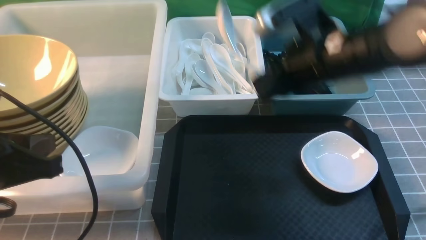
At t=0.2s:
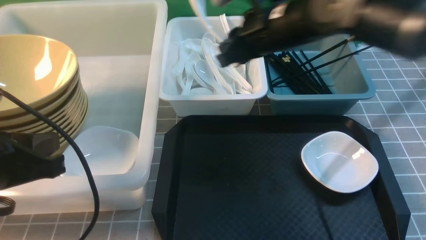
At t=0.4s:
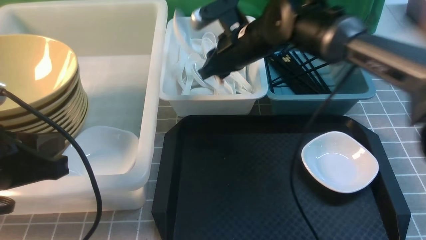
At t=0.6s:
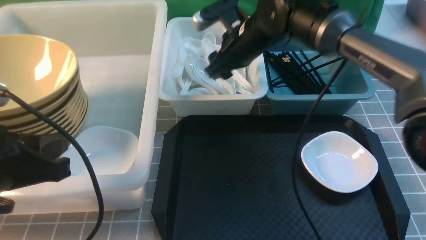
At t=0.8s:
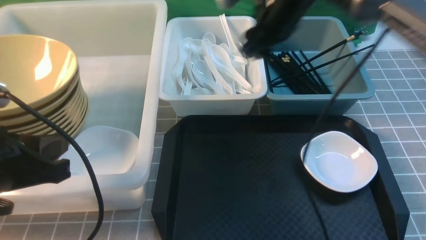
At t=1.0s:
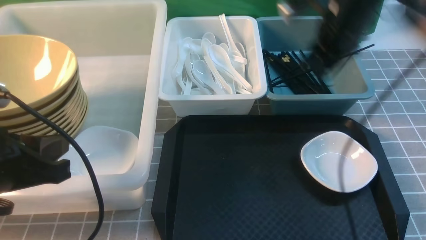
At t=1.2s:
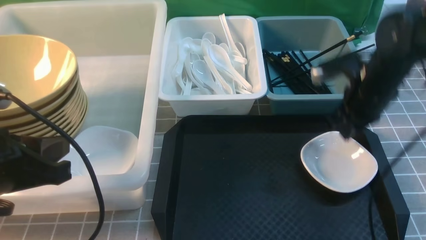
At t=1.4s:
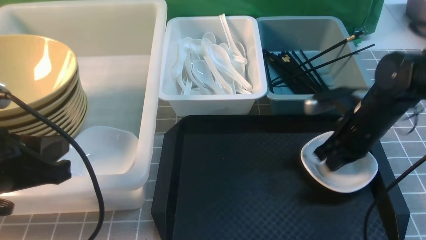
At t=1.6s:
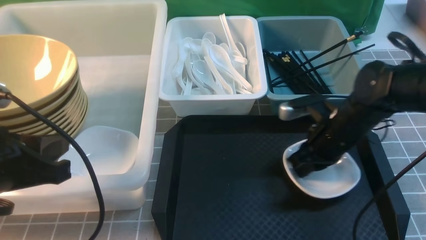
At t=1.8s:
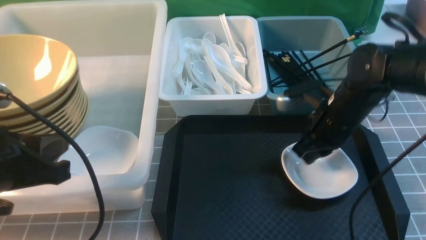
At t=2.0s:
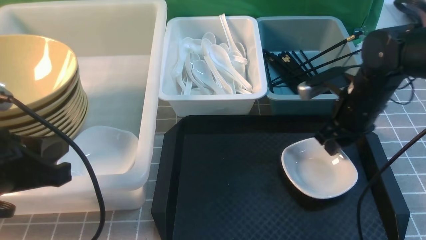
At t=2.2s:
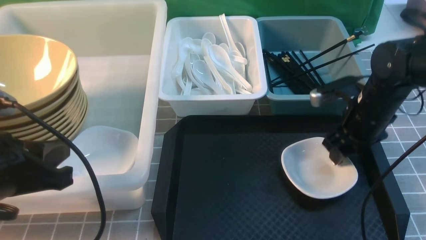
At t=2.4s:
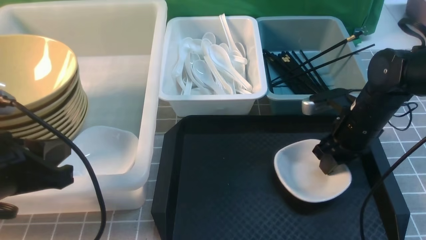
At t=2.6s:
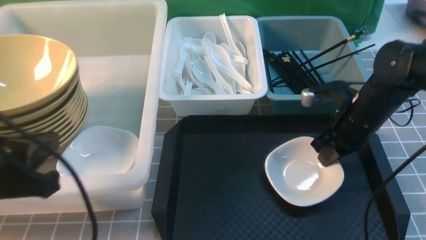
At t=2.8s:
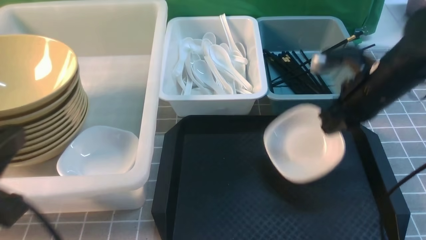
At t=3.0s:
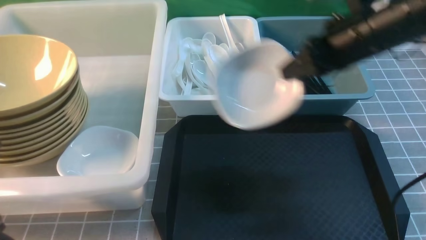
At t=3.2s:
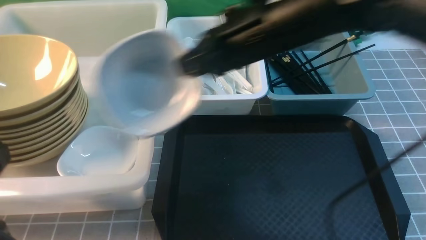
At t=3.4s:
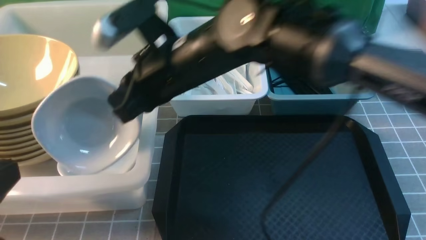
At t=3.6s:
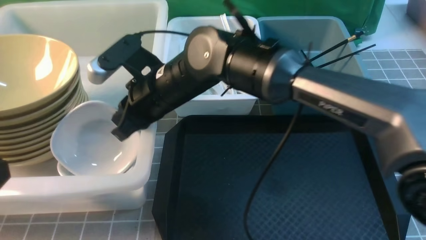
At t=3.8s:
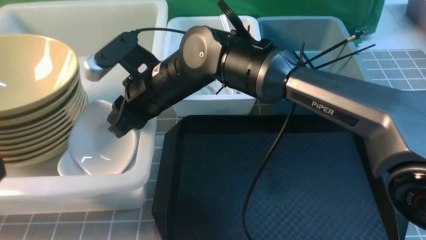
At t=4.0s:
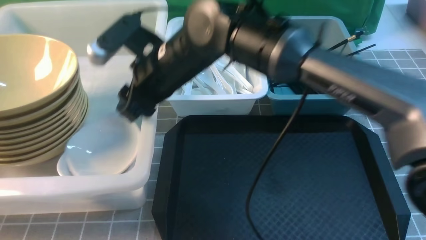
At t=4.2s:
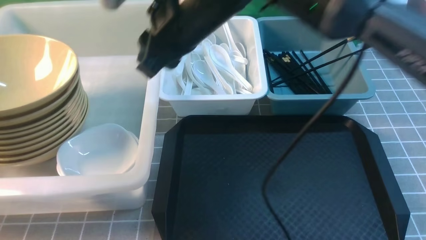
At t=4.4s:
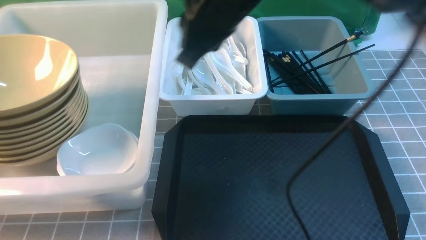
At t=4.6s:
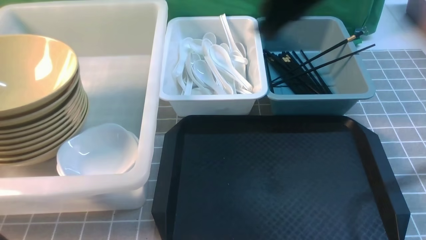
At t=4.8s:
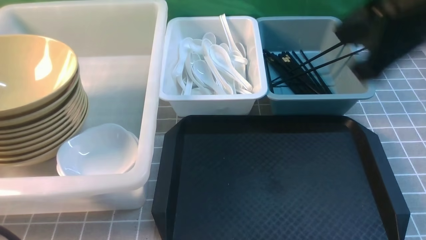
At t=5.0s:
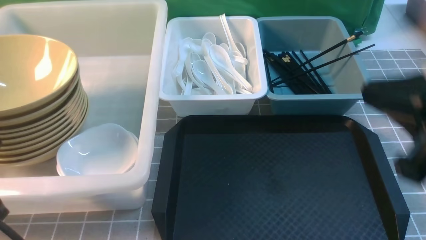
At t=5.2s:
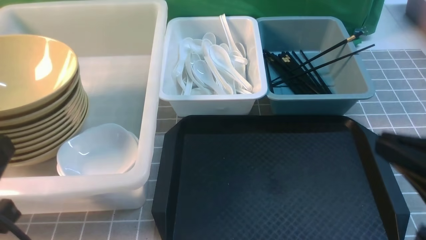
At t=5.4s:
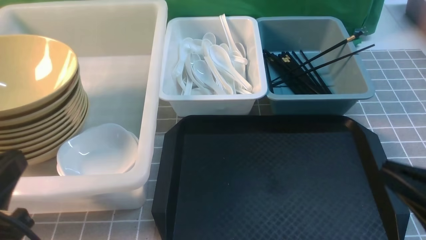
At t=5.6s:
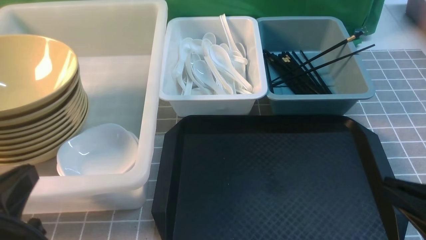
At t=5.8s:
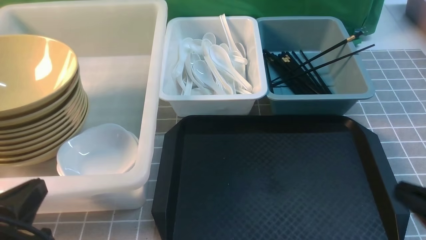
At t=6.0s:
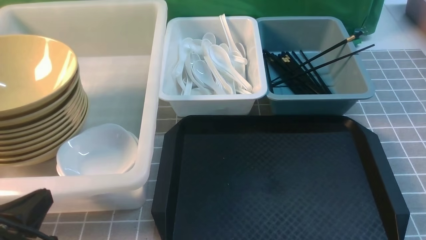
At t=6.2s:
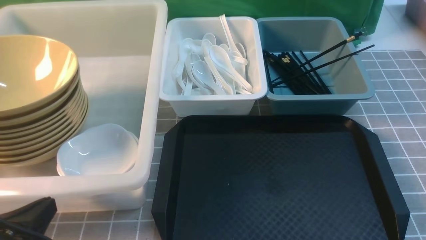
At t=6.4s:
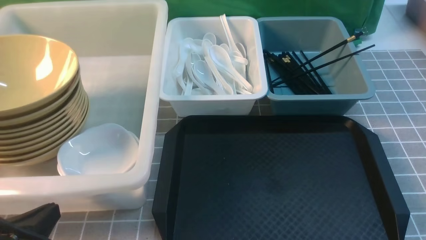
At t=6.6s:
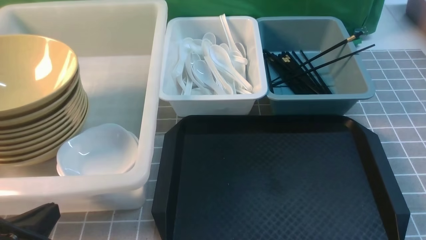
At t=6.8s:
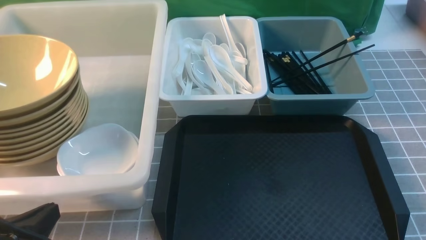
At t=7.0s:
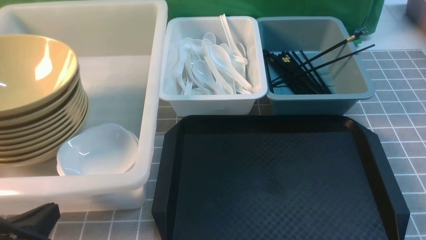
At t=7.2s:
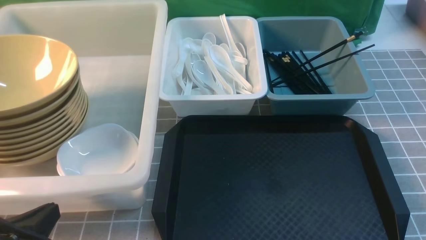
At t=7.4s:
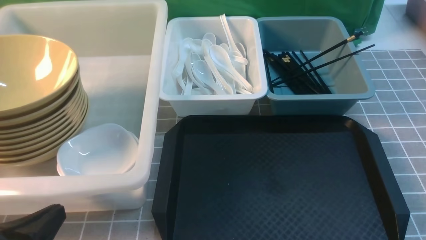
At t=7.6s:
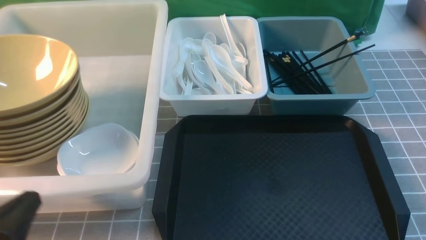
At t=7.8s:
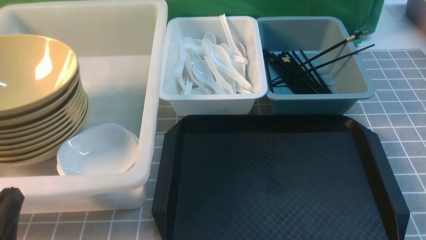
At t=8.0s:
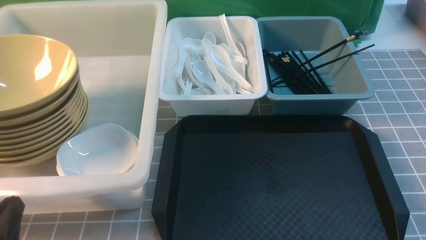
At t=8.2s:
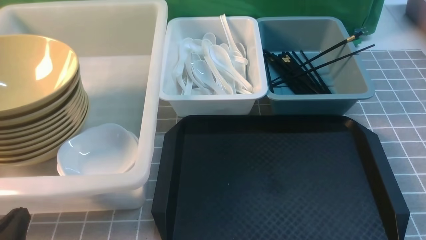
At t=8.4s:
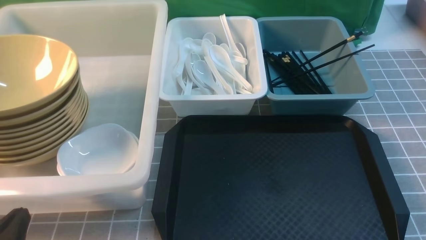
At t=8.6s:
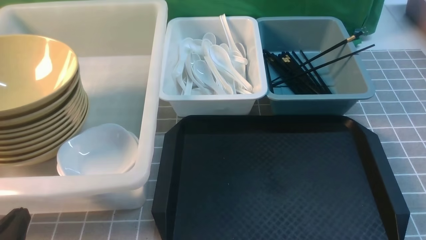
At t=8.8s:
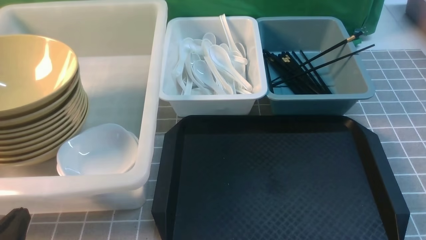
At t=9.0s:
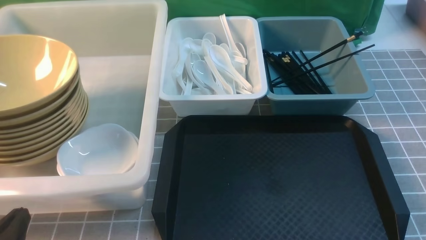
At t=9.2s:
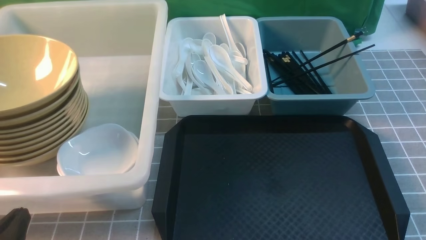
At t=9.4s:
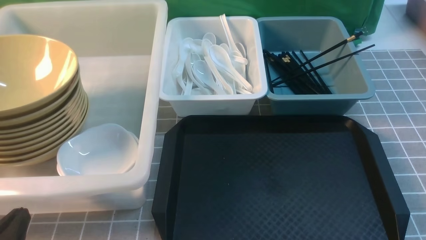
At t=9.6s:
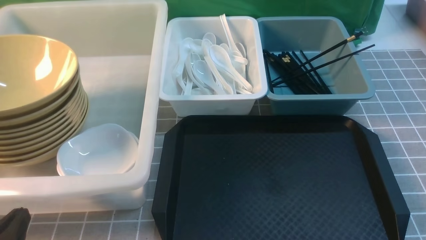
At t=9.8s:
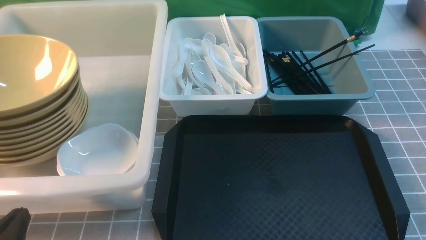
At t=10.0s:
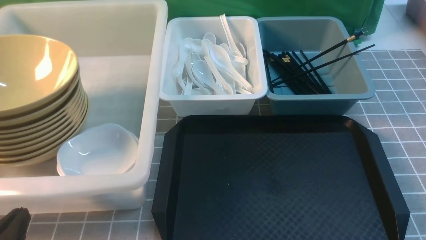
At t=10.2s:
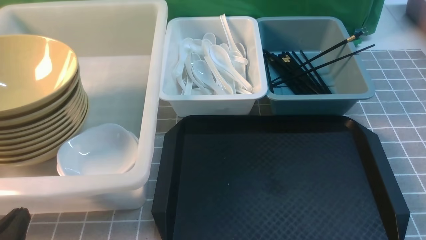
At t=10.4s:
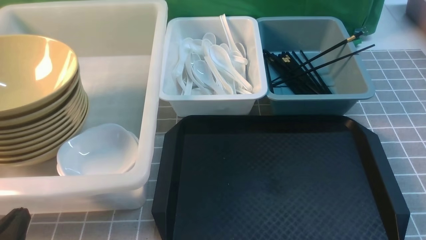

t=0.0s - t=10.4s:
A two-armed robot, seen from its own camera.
Task of the whole recording: on grey table put chopsticks spoon bowls plates into blue grey white boxes.
Step, t=0.0s - t=0.8s: use the right arm to put the soup spoon into the small storage box in the middle.
Step, t=1.0s - t=2.6s: use the right arm to grab the plate.
Step, t=2.8s - t=4.0s: use the right arm to put the plate into the large storage box on the left.
t=0.0s - t=1.4s: The right gripper shifts some 15 cm to the right and downward, and closes.
t=1.4s - t=3.0s: The left gripper moves backward, roughly 10 cm; the right gripper heads upward, covering about 10 cm, and opens, then closes once more.
t=3.0s - t=4.4s: The right gripper goes approximately 20 cm to the left and upward, and opens, then closes once more.
t=4.4s - t=6.0s: The left gripper shifts roughly 10 cm downward; the right gripper goes some 40 cm to the right, backward and downward.
t=7.4s - t=9.0s: The grippers move only a little.
t=9.0s - t=10.4s: Neither gripper changes place.
